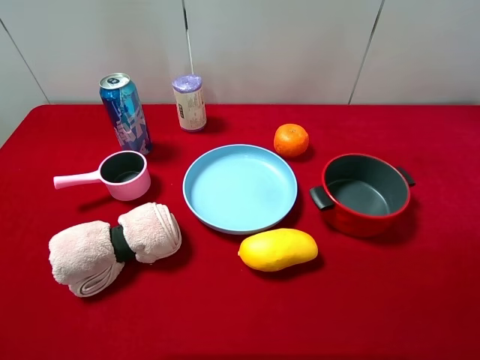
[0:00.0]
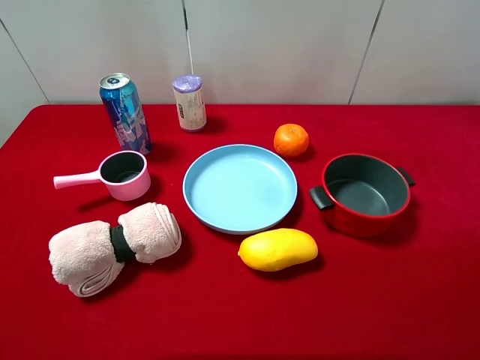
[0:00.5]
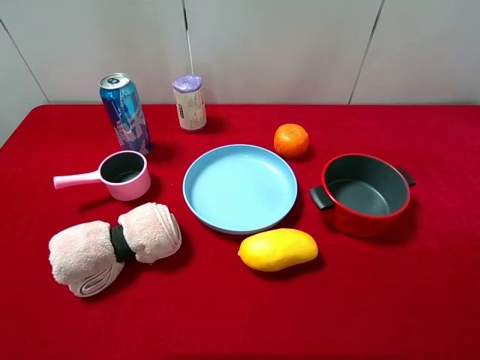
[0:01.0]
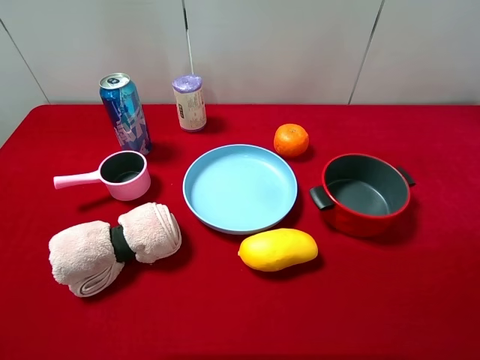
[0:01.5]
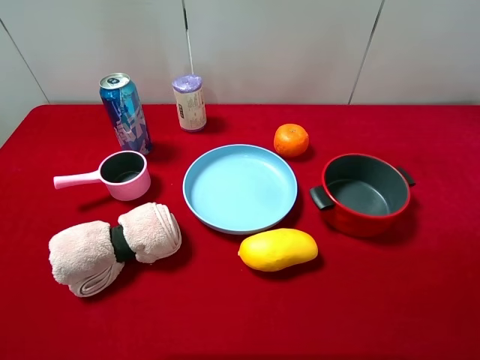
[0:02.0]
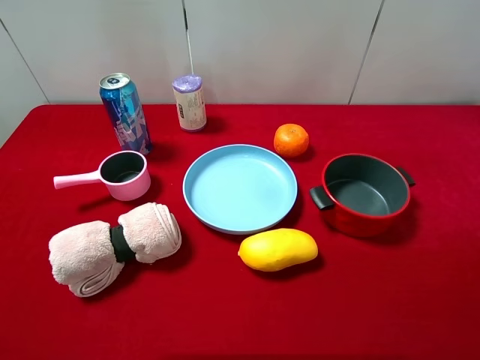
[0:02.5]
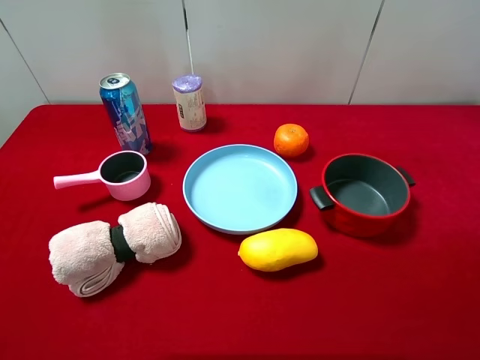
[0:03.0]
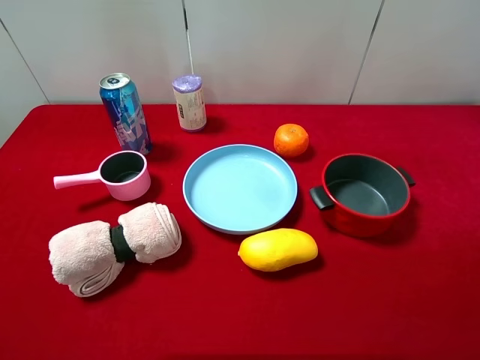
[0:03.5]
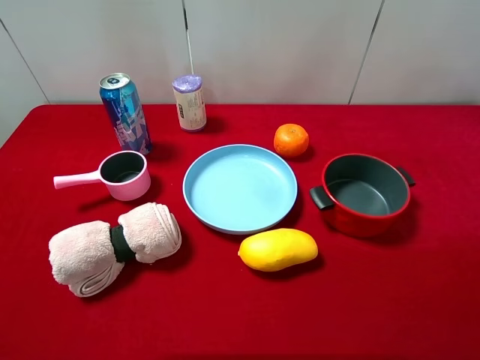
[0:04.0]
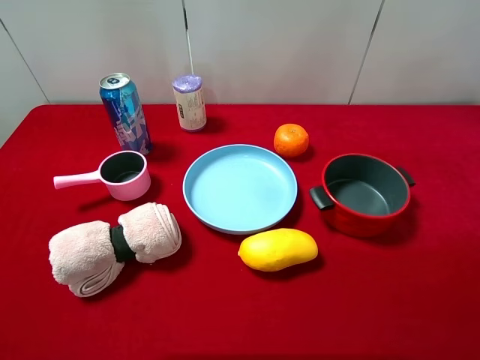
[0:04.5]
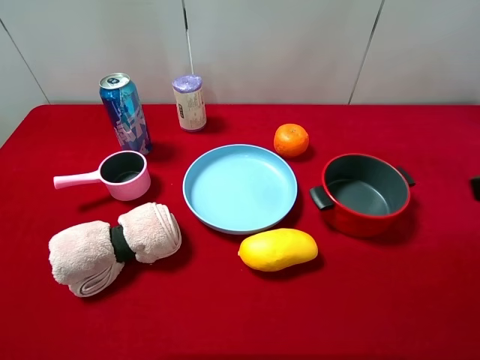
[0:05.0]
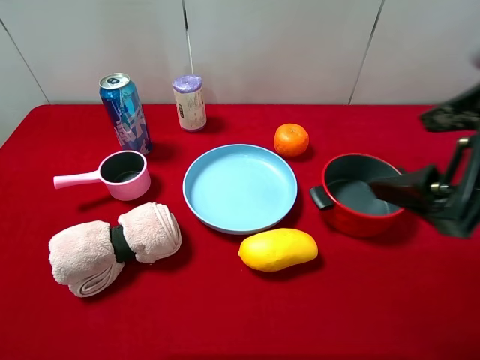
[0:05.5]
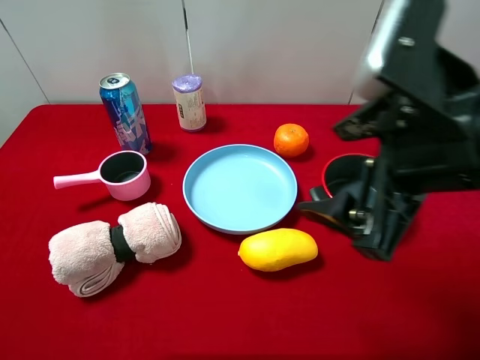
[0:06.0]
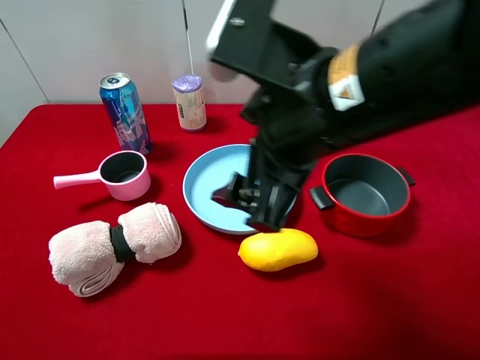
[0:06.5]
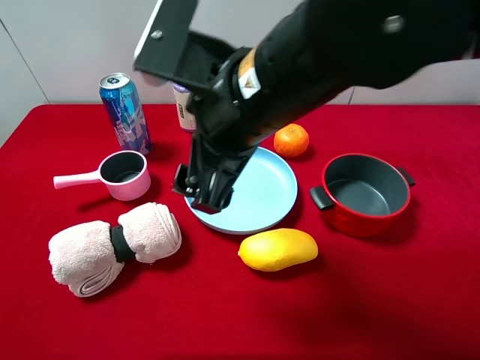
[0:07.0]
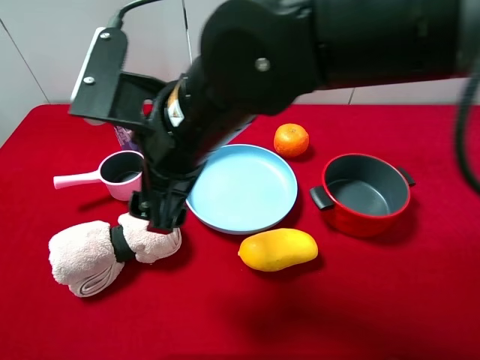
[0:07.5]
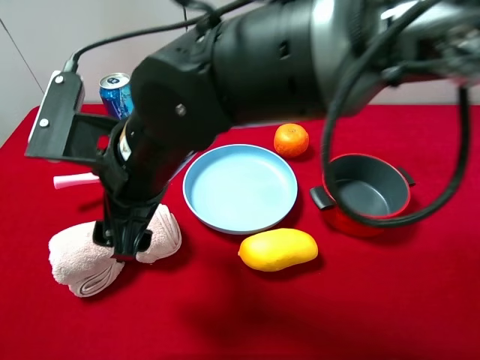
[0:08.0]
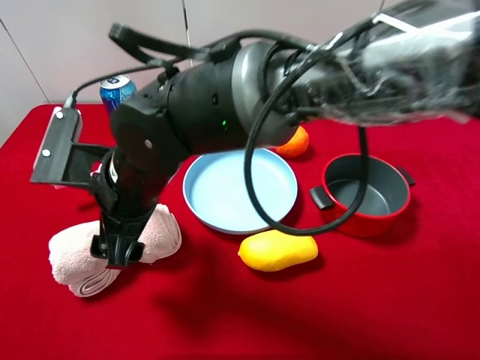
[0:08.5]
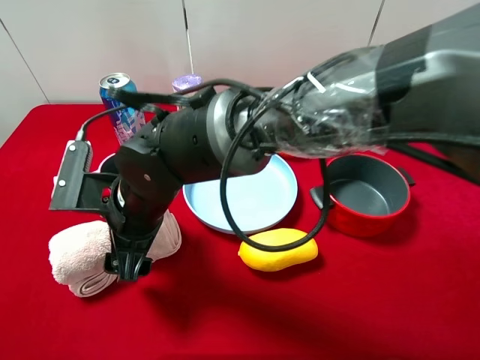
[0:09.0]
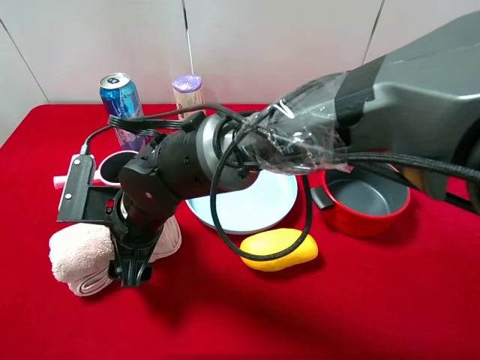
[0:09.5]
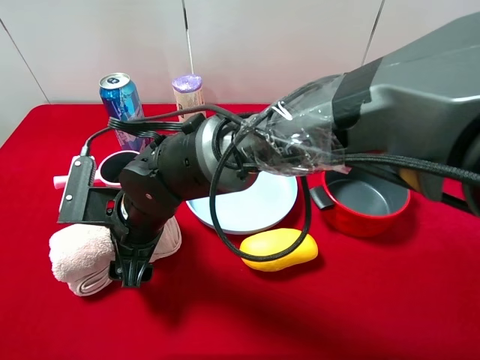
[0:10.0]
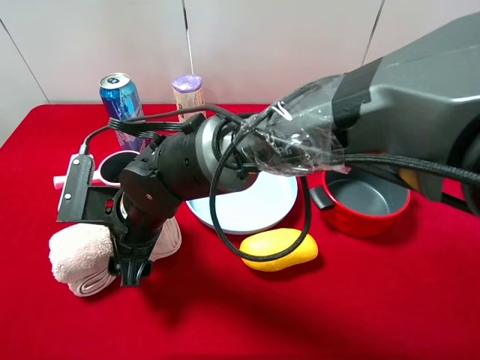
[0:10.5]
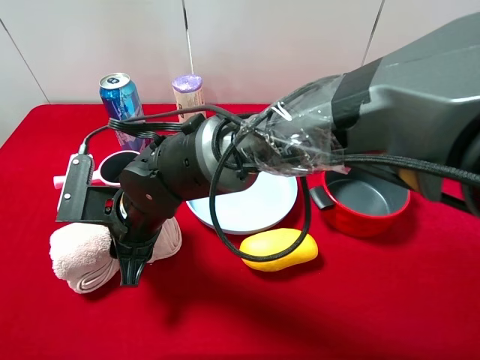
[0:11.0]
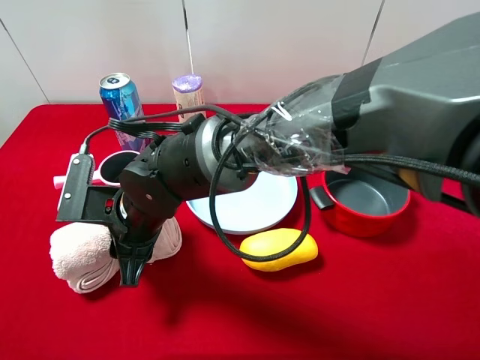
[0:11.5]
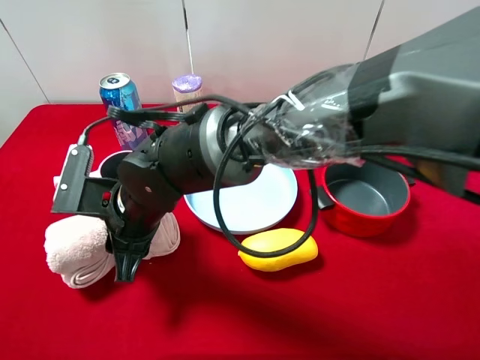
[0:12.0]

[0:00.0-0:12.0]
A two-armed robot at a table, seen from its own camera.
Task of the whole recording: pick up an item with a gripper and place it in a random container on the desktop.
0:04.0 to 0:06.0: The right gripper shifts roughly 20 cm to the left and forward.
0:06.0 to 0:08.0: The right gripper moves to the left, some 25 cm.
0:08.0 to 0:10.0: The right gripper heads downward, covering some 10 cm.
0:10.0 to 0:12.0: The right gripper closes up.

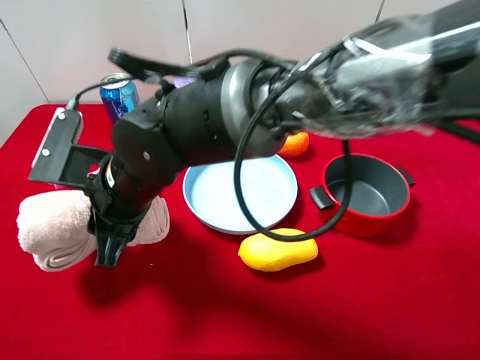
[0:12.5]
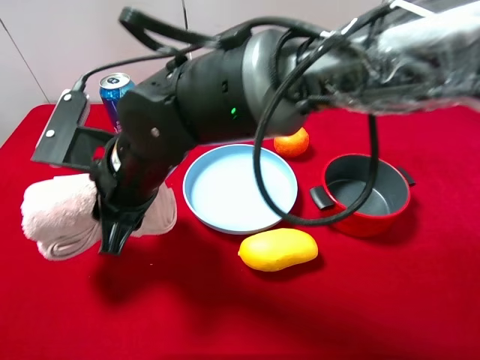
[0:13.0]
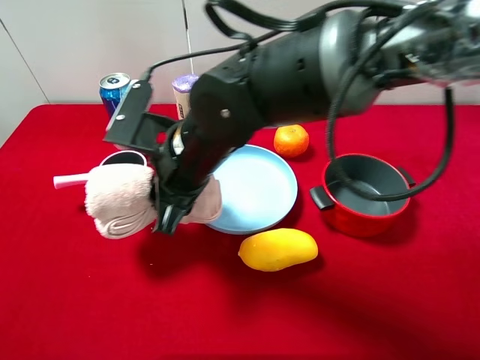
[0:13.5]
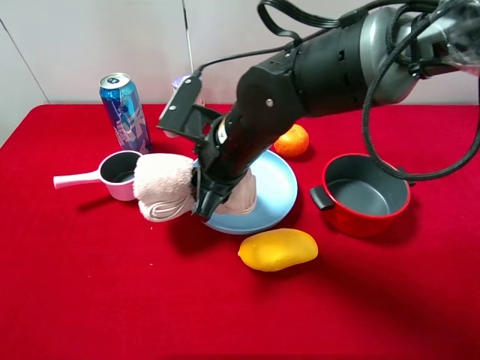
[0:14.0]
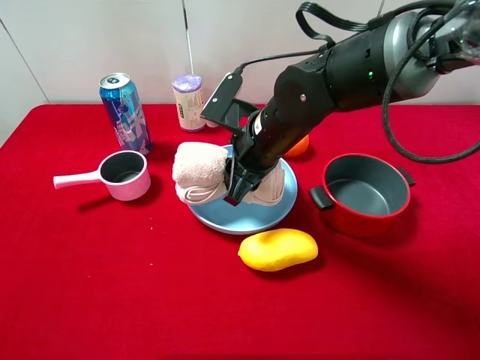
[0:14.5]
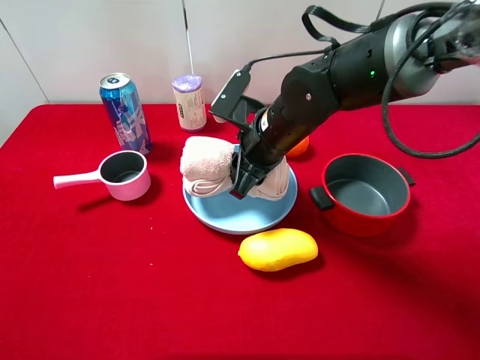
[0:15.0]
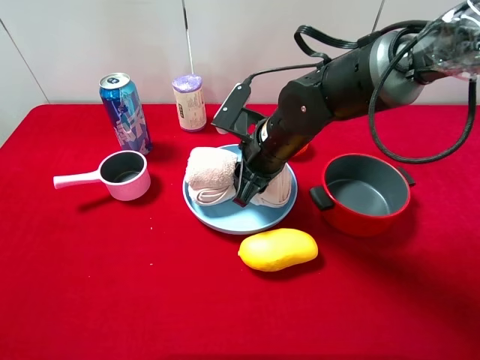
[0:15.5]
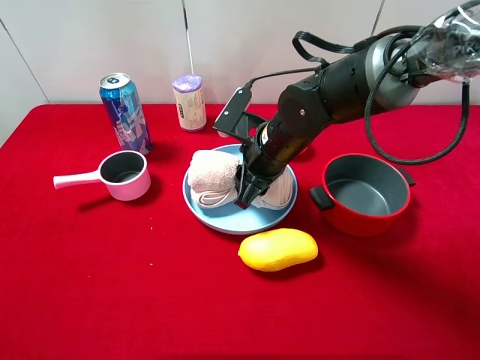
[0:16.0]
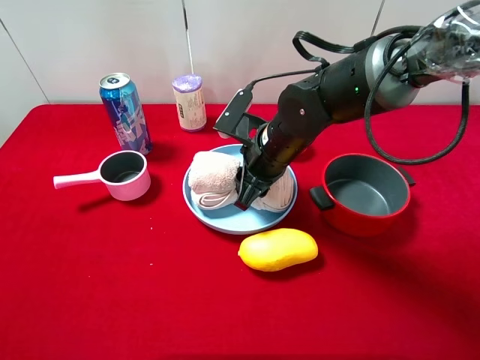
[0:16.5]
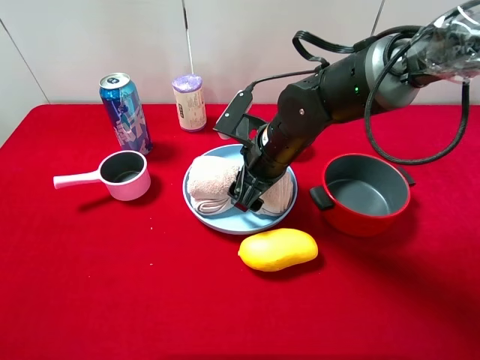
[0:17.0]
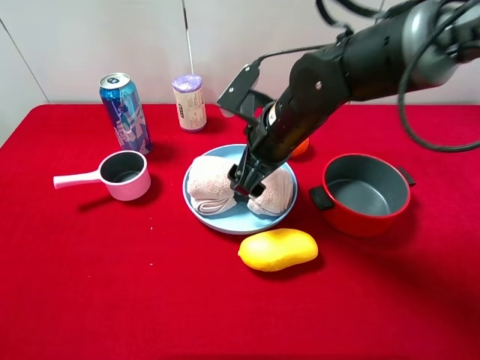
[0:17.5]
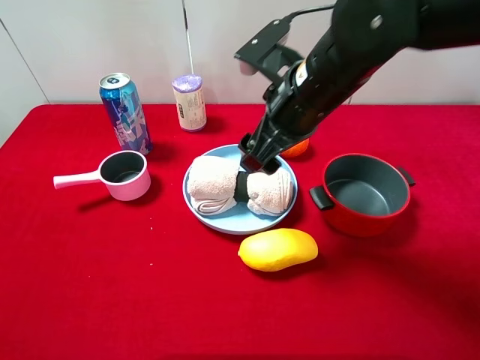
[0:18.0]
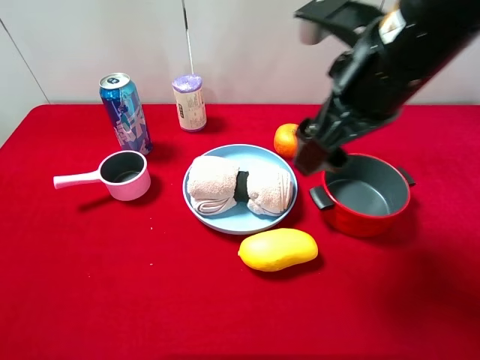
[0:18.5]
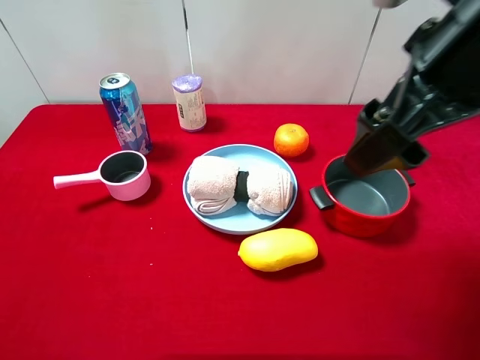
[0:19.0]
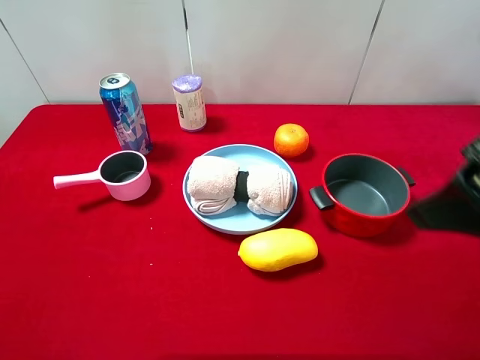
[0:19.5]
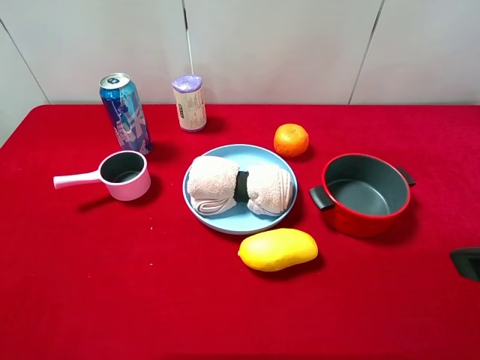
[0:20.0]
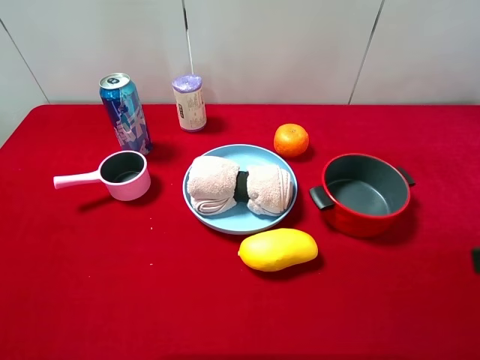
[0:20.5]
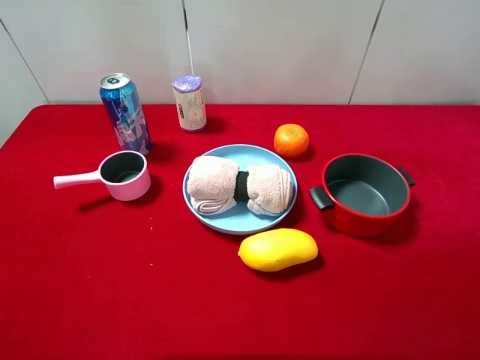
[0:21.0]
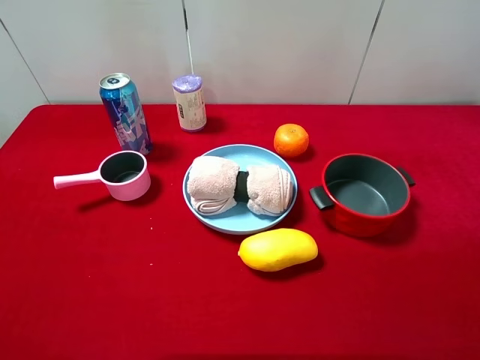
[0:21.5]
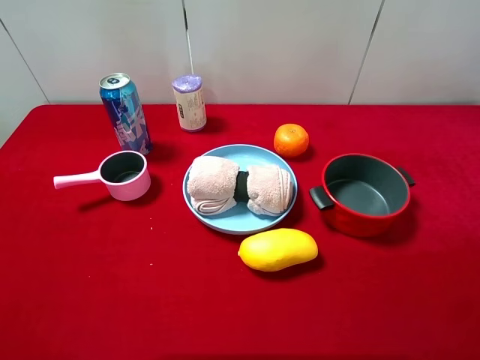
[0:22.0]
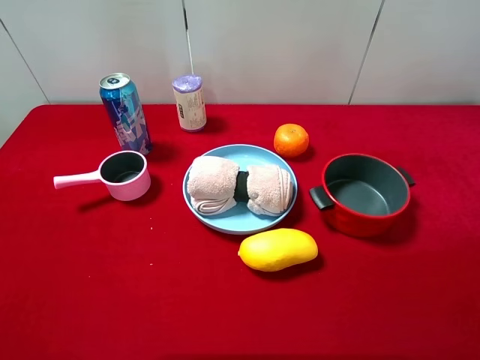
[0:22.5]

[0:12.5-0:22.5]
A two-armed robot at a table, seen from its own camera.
Task of the whole recording: pick up an item with a gripper and place it in a random container on the desktop.
0:12.5 to 0:14.5: The right gripper travels to the right and forward by approximately 15 cm.
0:14.5 to 0:16.5: The grippers move only a little.
0:16.5 to 0:18.5: The right gripper heads upward and backward, covering roughly 15 cm, and opens its fingers.
0:18.5 to 0:20.5: The right gripper travels backward and to the right by some 25 cm.

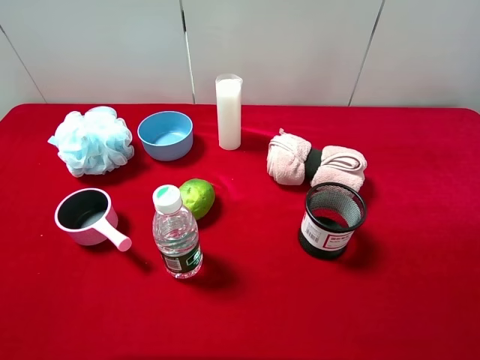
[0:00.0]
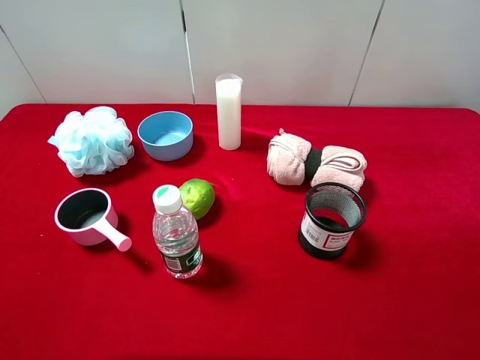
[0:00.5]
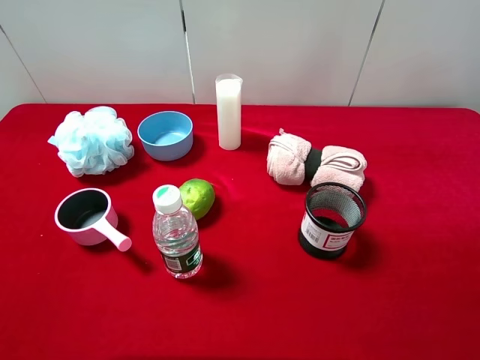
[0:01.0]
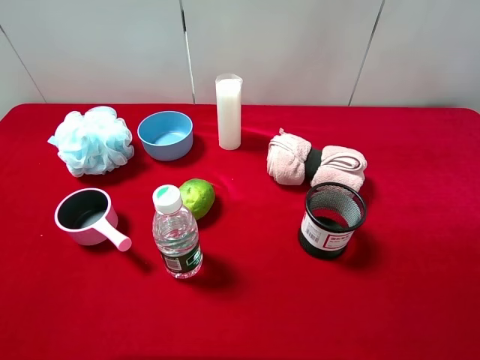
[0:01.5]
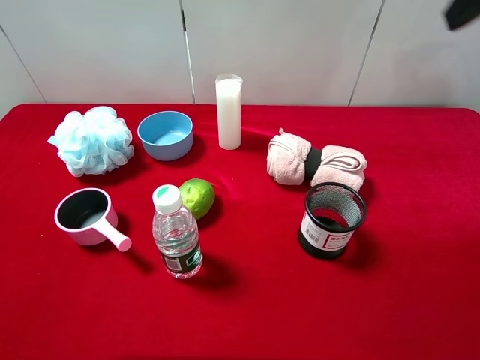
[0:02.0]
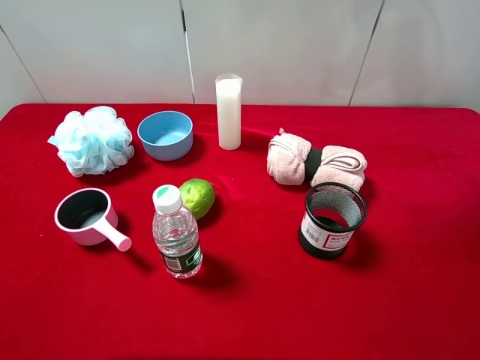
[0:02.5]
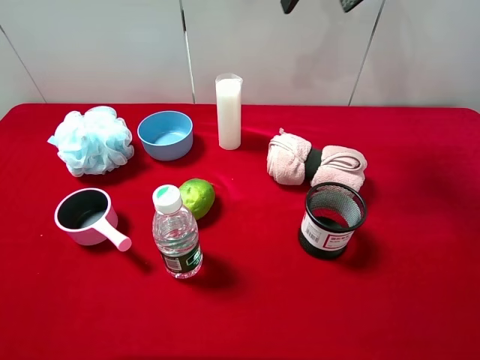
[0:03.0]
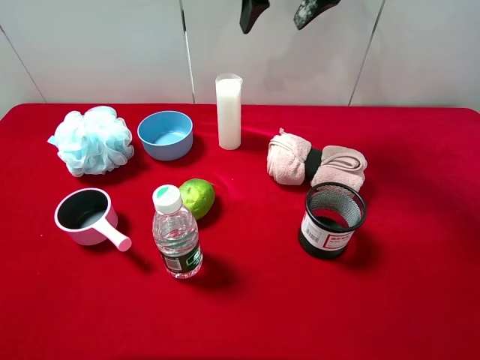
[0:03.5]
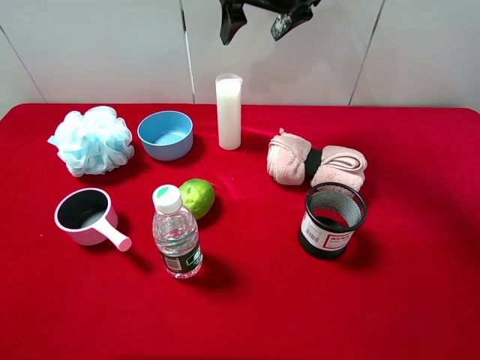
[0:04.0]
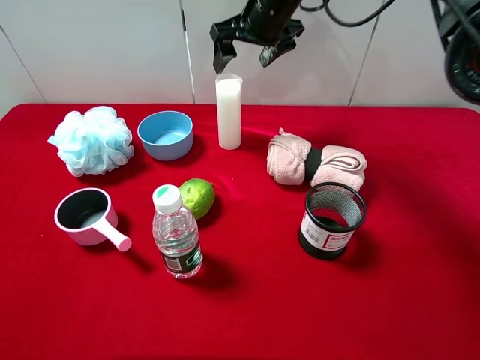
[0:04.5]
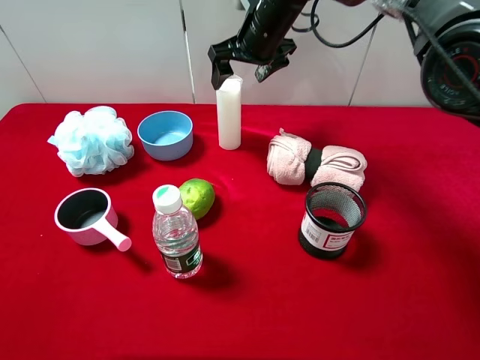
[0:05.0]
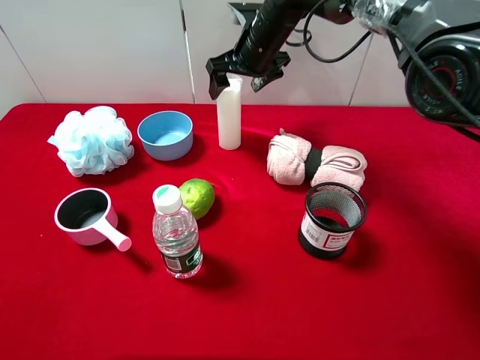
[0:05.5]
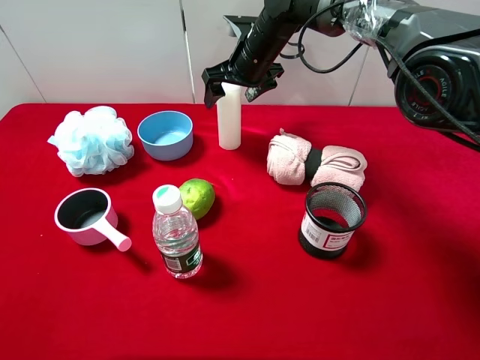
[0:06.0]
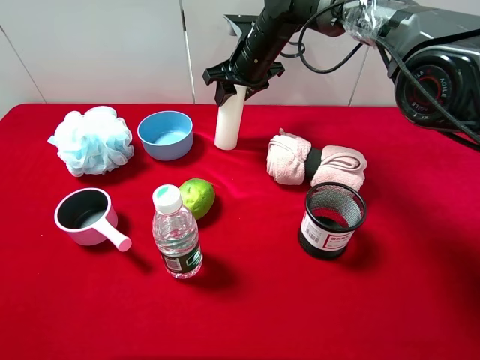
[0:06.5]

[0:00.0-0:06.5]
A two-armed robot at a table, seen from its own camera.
Task of the whole recording: pick up an item with a gripper and place it in a random container on the desktop.
0:02.0 to 0:04.5: The right gripper travels forward, to the left and downward by about 35 cm.
0:04.5 to 0:06.5: The right gripper heads downward, covering some 5 cm, and closes.
